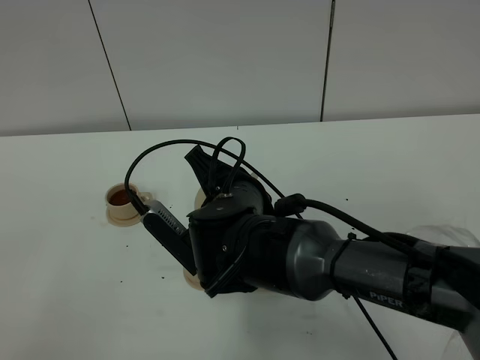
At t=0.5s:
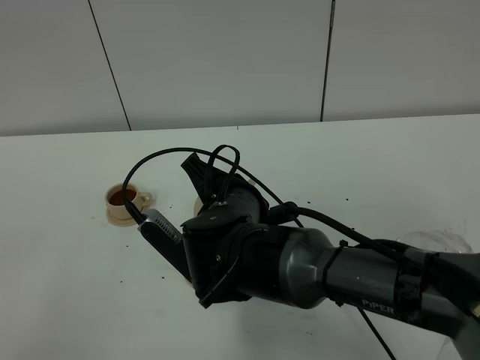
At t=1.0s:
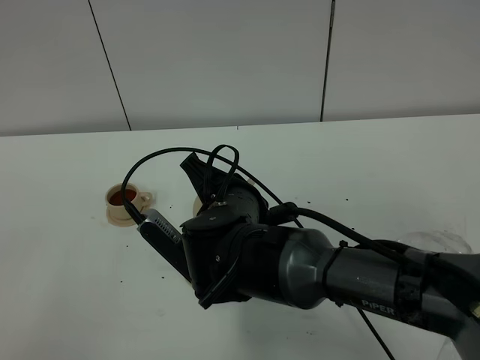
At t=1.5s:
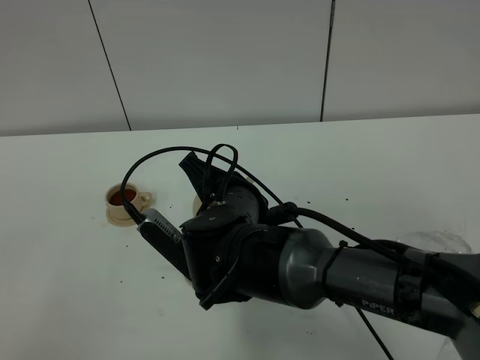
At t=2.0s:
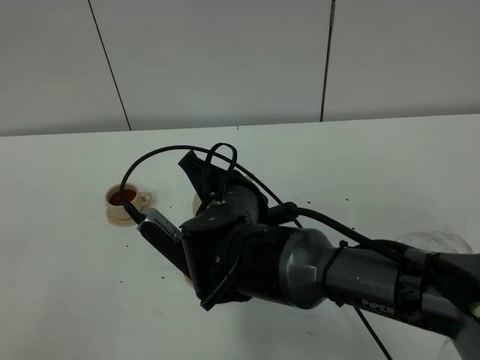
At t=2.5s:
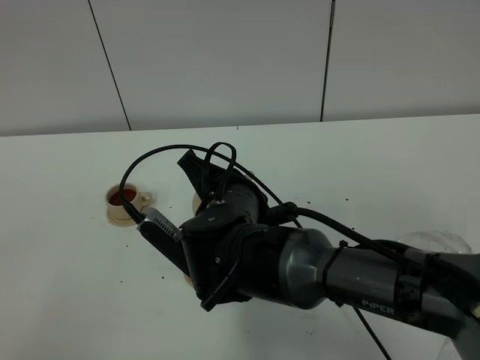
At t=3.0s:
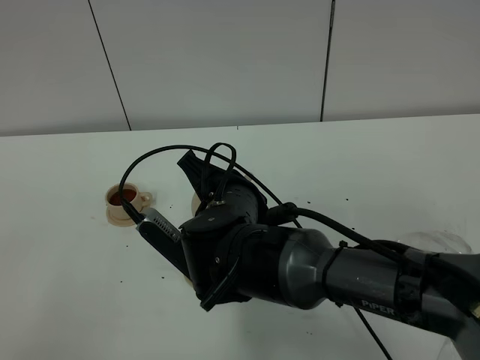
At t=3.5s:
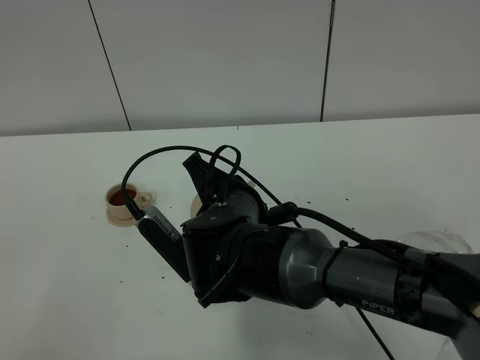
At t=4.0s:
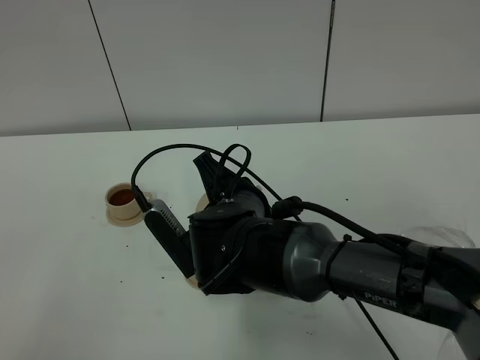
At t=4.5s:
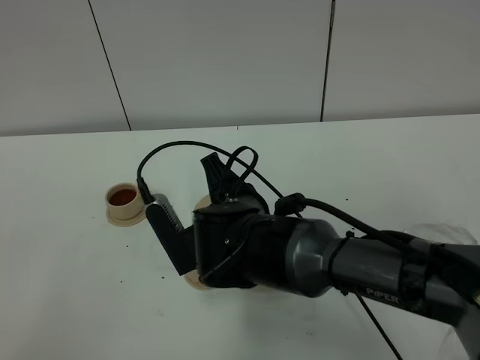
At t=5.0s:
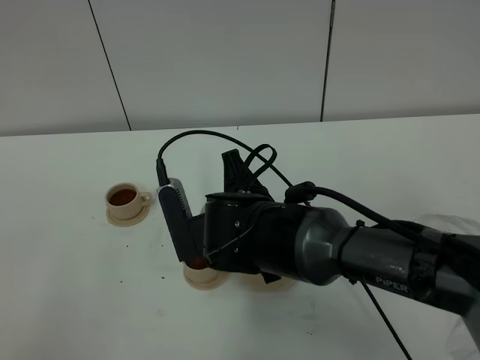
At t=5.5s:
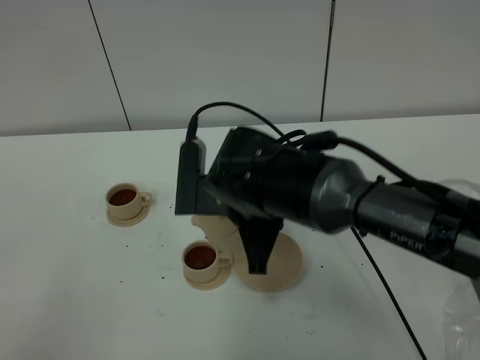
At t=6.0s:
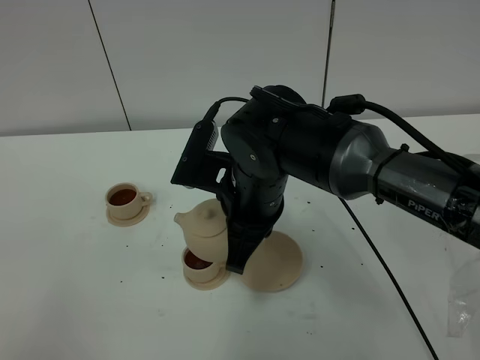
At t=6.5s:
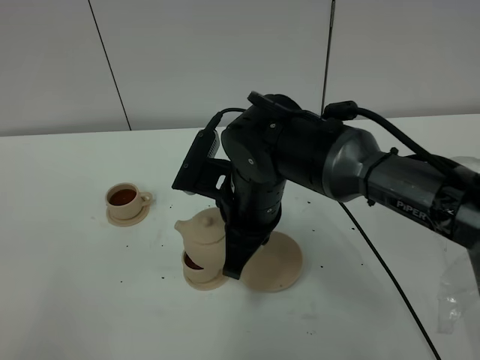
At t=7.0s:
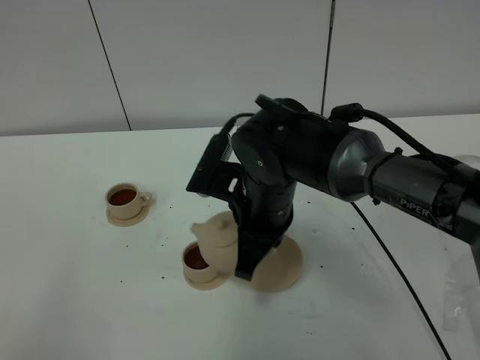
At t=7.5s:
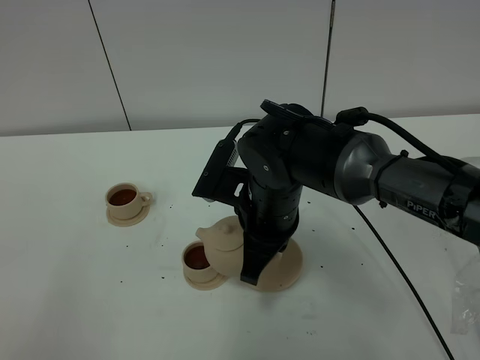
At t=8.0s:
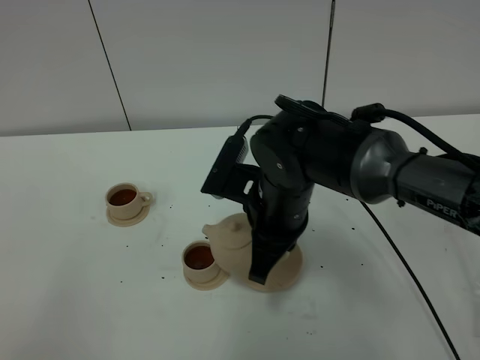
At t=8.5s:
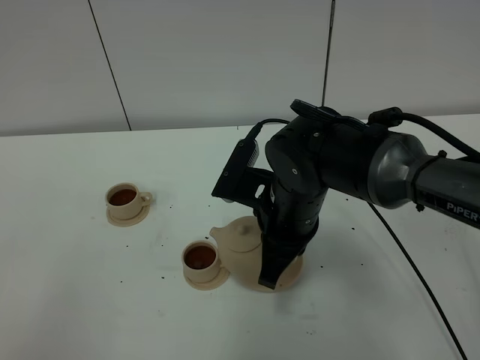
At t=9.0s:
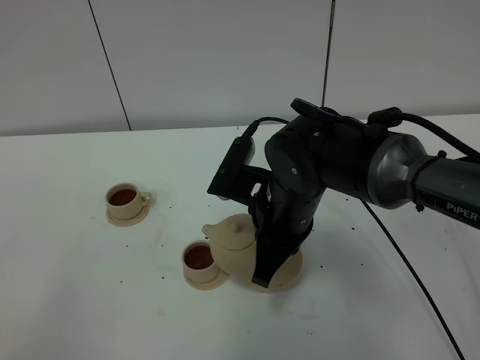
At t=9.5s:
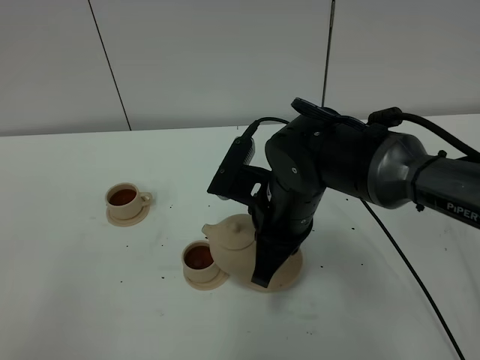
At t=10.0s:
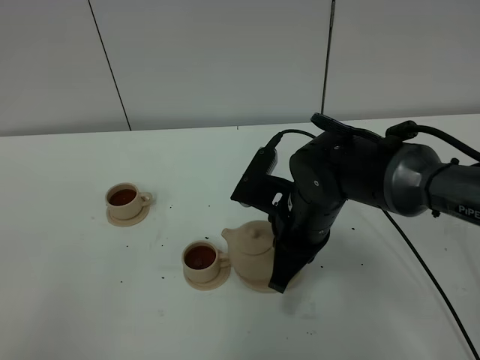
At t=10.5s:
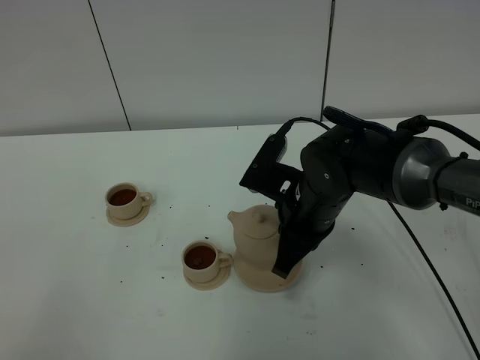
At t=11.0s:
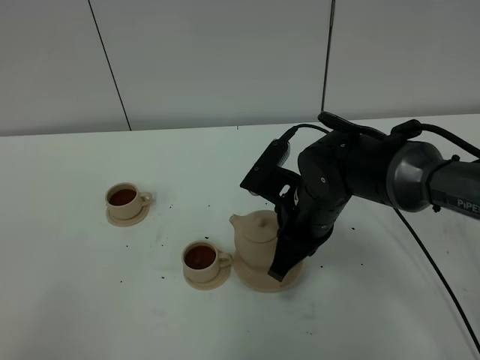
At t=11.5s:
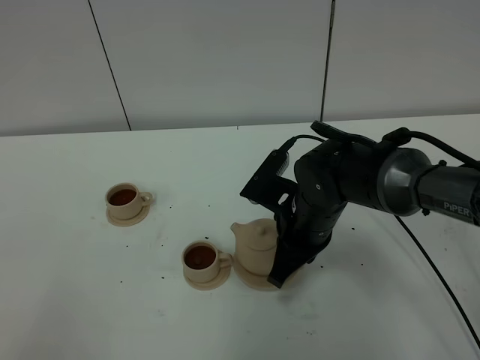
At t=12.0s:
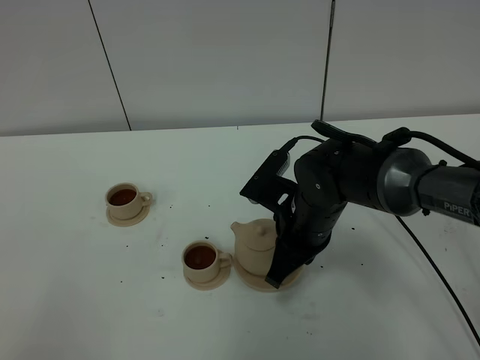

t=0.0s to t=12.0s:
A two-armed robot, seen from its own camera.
Task of the whole recording: grasp the brown teapot and pour the tea into the two brown teacups one by one, put the brown teapot back in its original place.
Step, t=0.0s to t=5.0s: Pour tea into the teacup with the right gripper.
t=0.0s to t=2.0s: Both grippers stay about where they are.
t=2.0s to t=4.0s: There are only small adjustments of the grippers.
t=4.0s to t=6.0s: The right gripper shifts by about 5 cm.
t=6.0s to t=8.0s: The grippers move only a little.
t=8.0s to t=10.0s: The grippers move only a little.
t=10.0s to t=12.0s: The grippers stay close to where they were, moving slightly.

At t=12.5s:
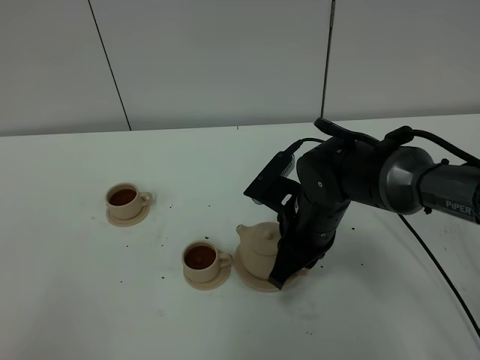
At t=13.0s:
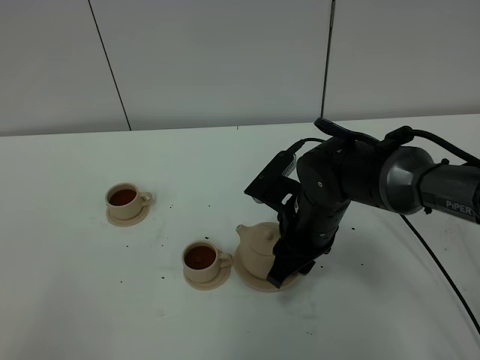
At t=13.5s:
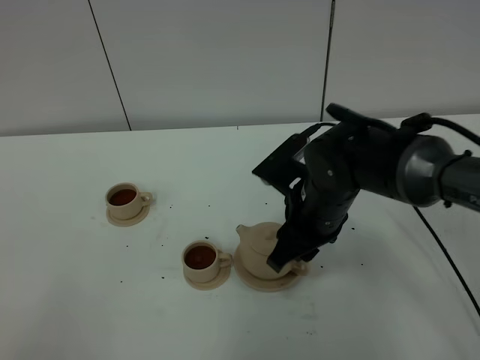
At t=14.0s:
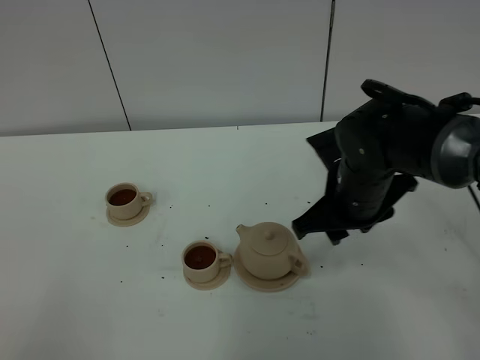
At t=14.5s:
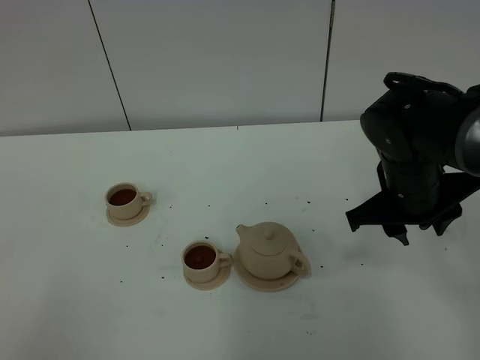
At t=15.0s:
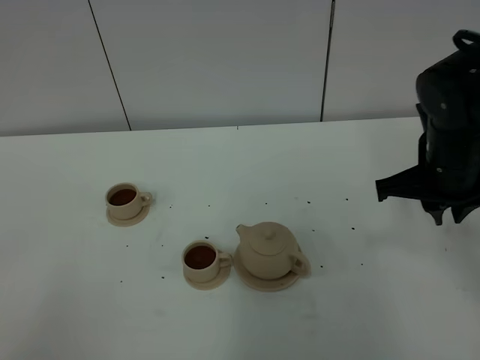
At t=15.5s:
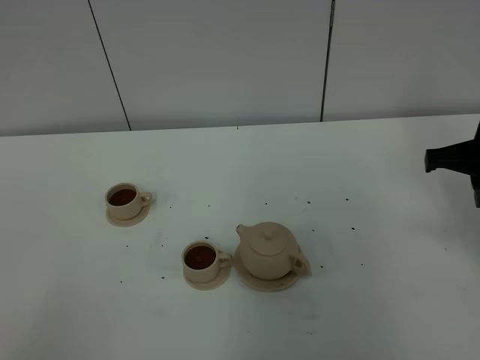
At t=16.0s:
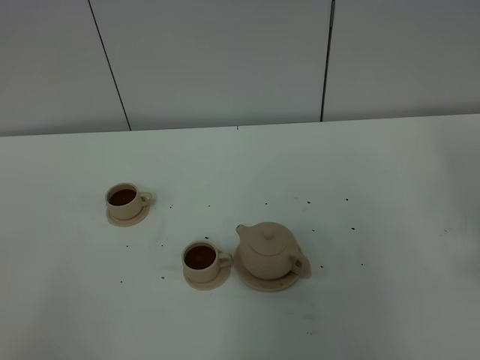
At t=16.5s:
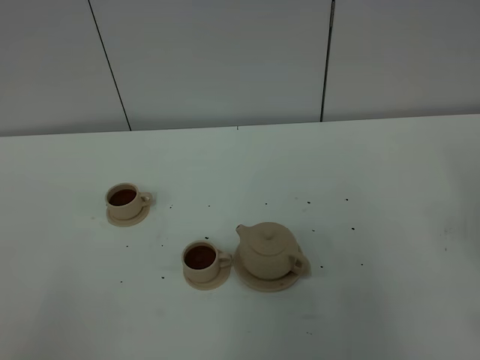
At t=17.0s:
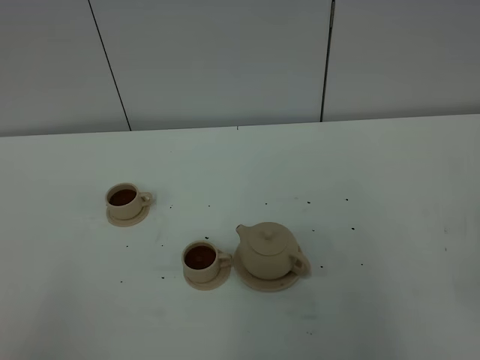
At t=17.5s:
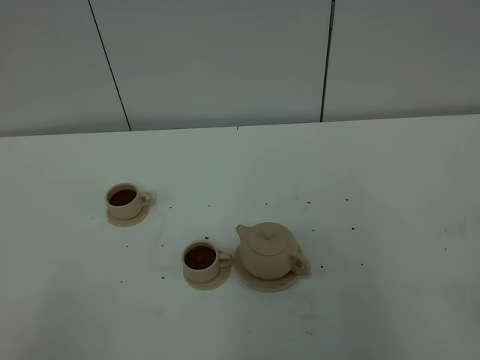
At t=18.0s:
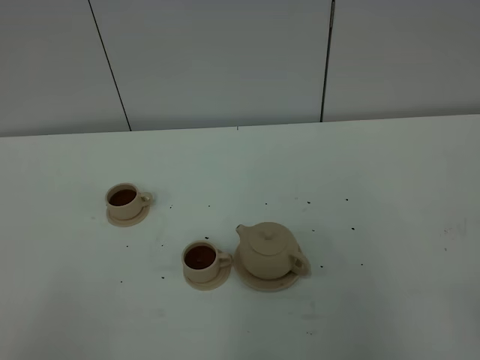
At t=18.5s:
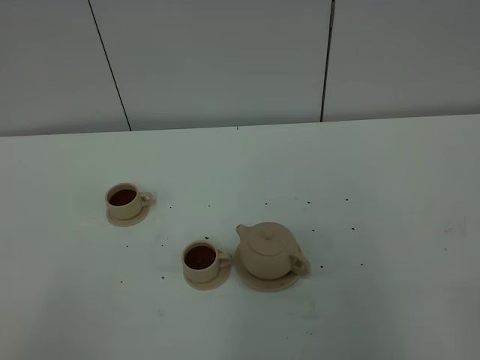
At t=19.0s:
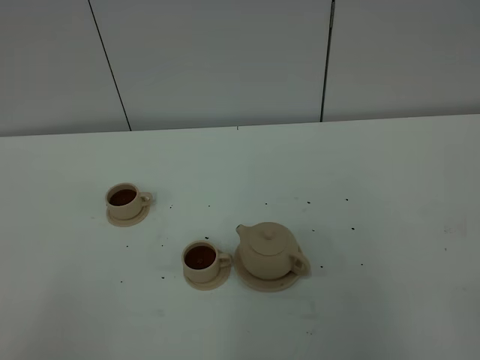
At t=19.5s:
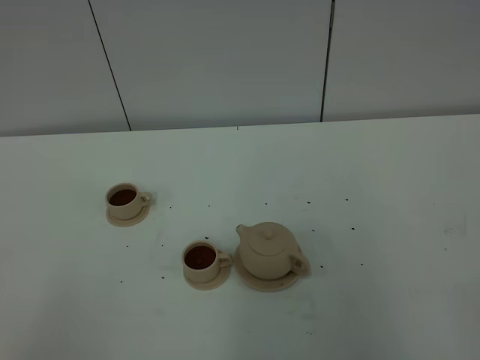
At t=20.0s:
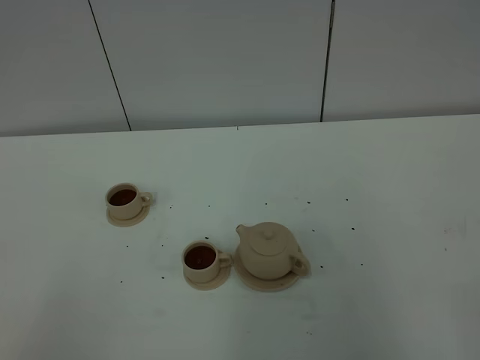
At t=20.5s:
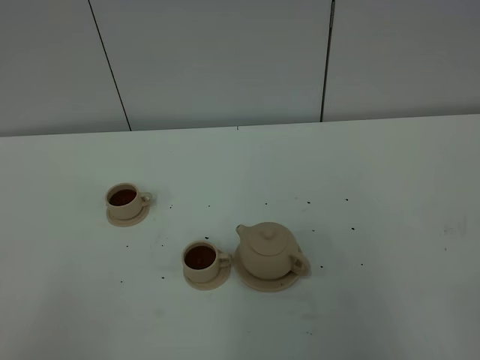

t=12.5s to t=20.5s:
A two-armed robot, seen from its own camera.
Task of the whole recording: grasp the brown teapot and pour the tea into the two brown teacups one by one, put the brown teapot back in its original place.
t=12.5s to t=14.5s: The right gripper moves to the right and upward, approximately 10 cm, and opens.
t=14.5s to t=16.5s: The right gripper goes about 25 cm backward, to the right and upward, and closes its fingers.
t=18.5s to t=20.5s: Both grippers stay about where they are.

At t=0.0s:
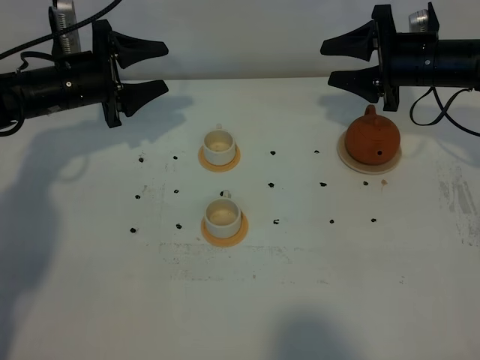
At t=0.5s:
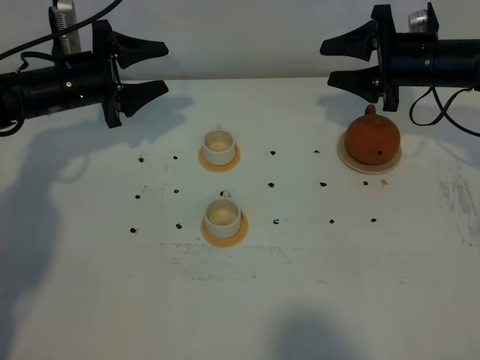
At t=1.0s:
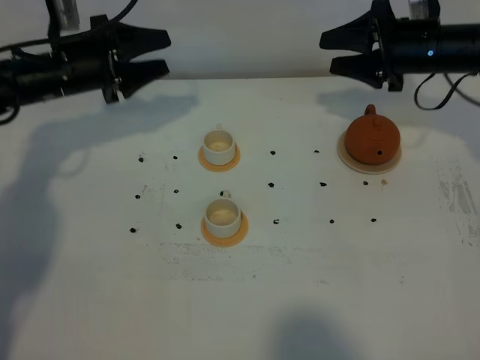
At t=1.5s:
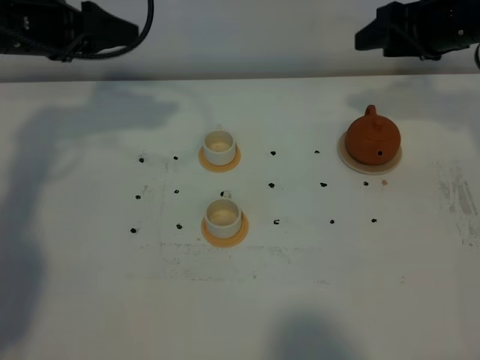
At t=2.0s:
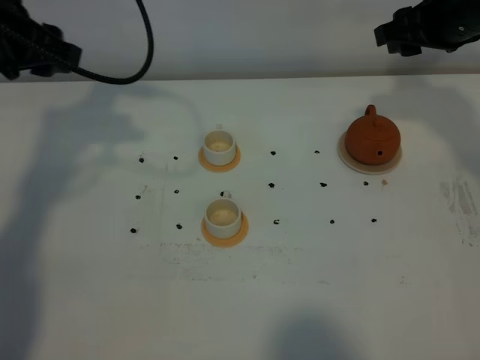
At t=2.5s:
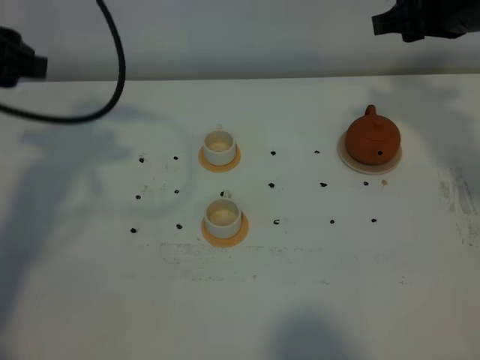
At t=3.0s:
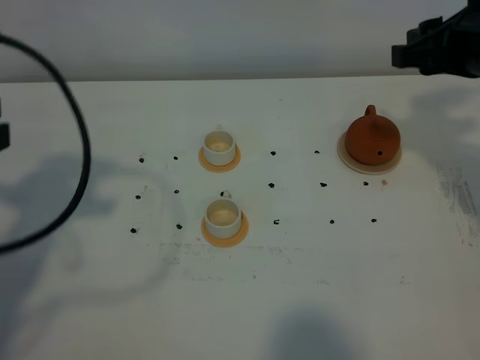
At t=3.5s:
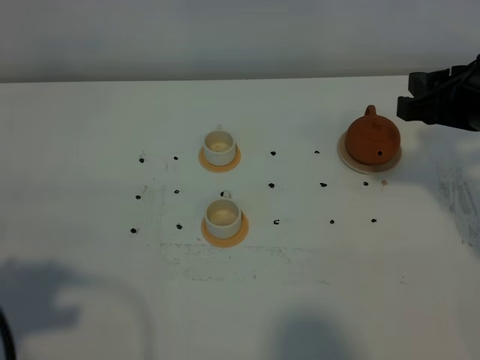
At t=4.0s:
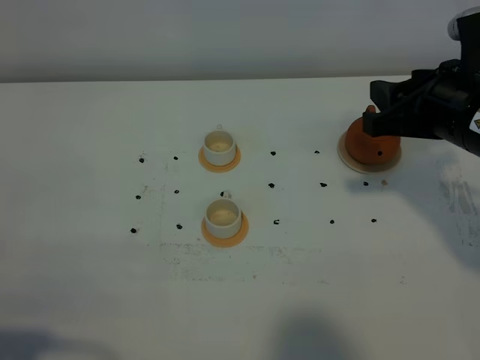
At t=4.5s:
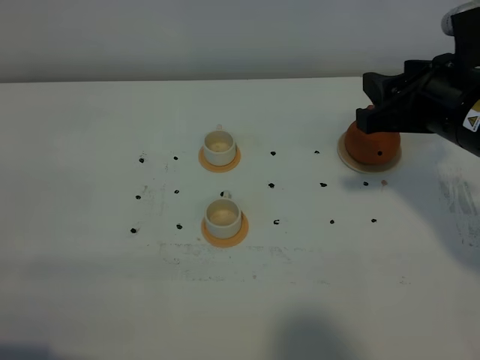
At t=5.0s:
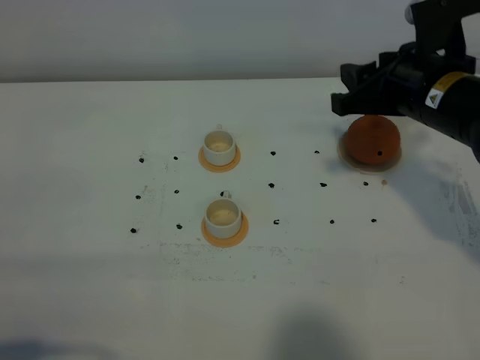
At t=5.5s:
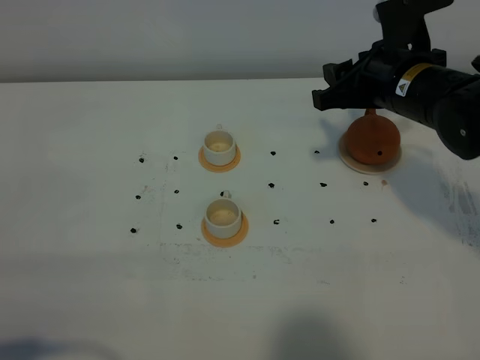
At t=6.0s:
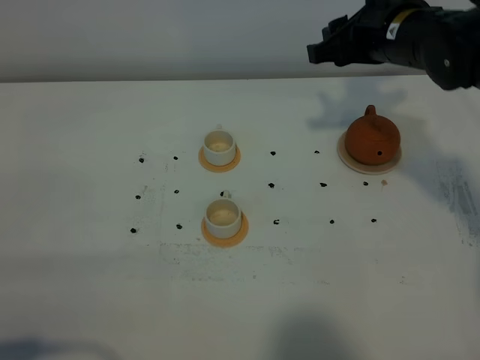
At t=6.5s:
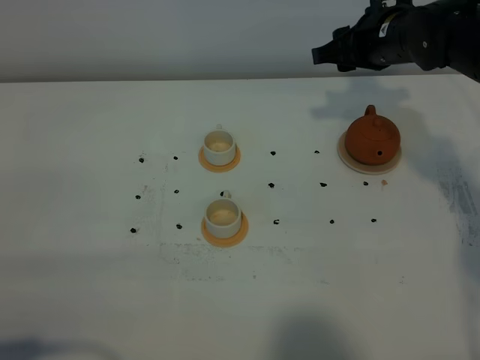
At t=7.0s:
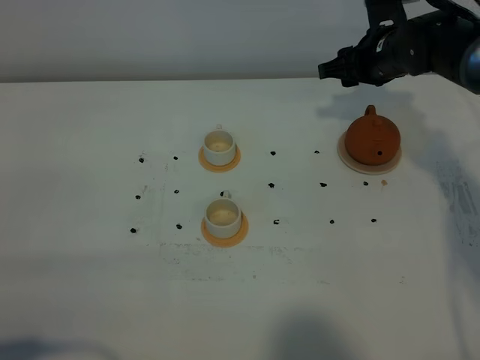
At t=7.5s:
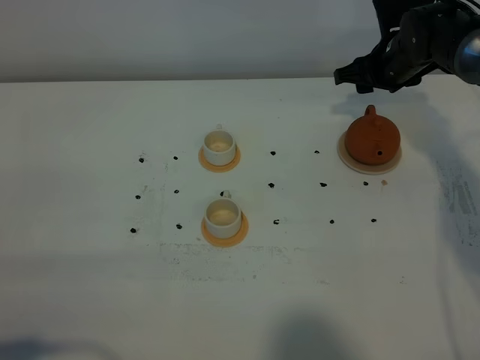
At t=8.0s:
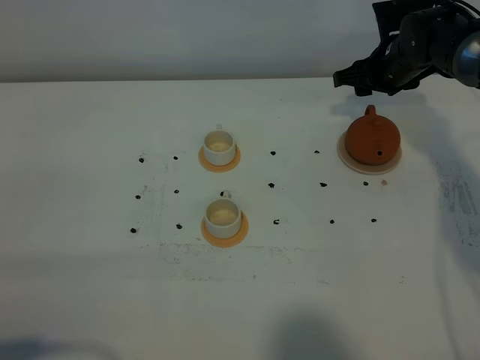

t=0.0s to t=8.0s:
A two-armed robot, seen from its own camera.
Task of the whole recording: grasp the brown teapot and pour the tea into the two white teacups one by one, put the brown teapot back in its original place.
t=0.0s to t=2.0s: The left gripper heads upward and backward, covering approximately 20 cm. Meanwhile the right gripper shifts approximately 10 cm upward.
t=2.0s to t=4.0s: The left gripper moves backward, roughly 35 cm; the right gripper heads backward, covering some 15 cm.
t=4.0s to t=6.0s: The right gripper travels forward and to the left by roughly 15 cm.
t=6.0s to t=8.0s: The right gripper heads downward and forward, covering some 15 cm.
